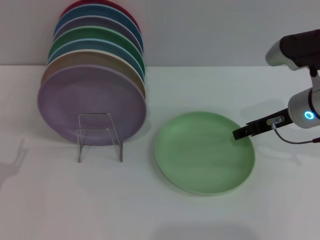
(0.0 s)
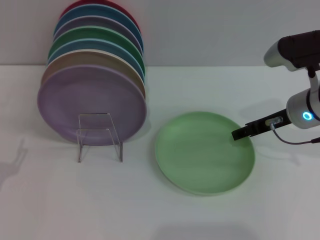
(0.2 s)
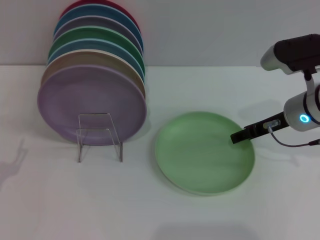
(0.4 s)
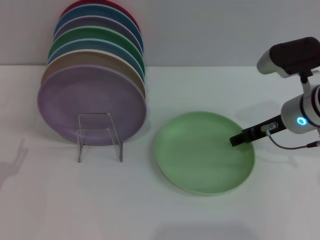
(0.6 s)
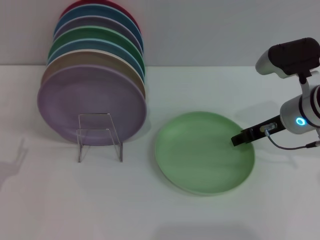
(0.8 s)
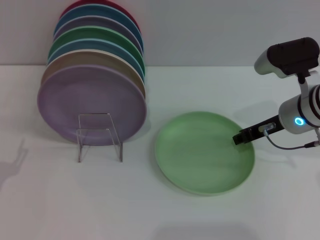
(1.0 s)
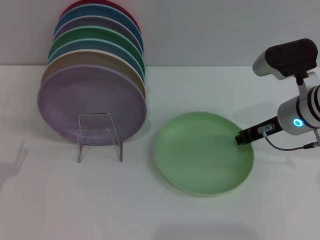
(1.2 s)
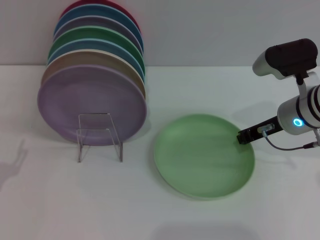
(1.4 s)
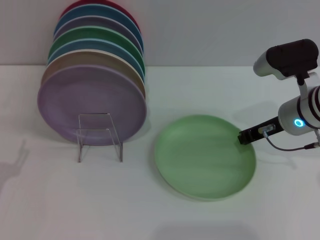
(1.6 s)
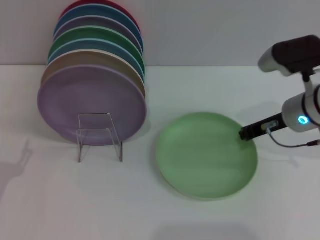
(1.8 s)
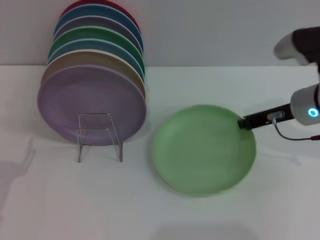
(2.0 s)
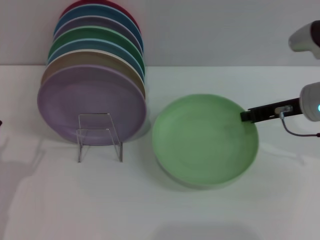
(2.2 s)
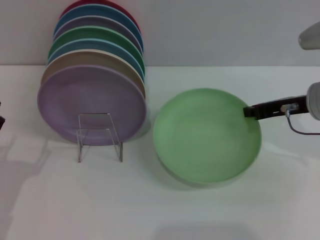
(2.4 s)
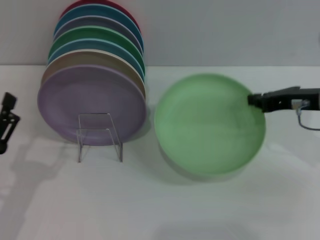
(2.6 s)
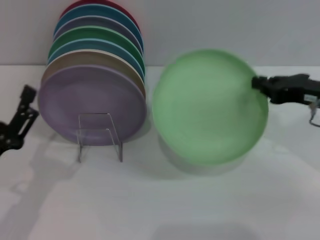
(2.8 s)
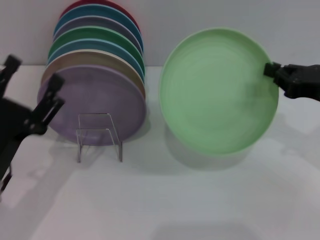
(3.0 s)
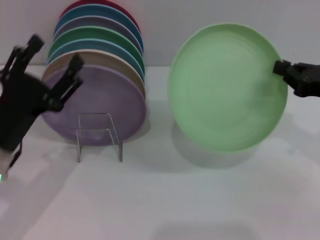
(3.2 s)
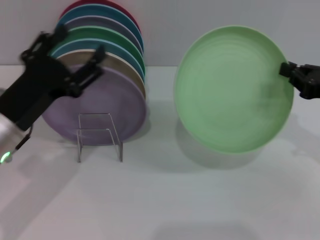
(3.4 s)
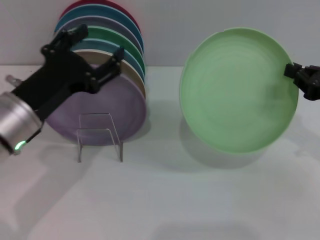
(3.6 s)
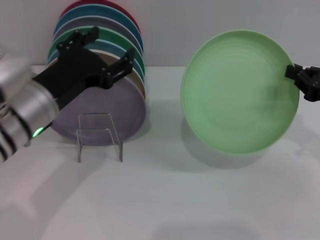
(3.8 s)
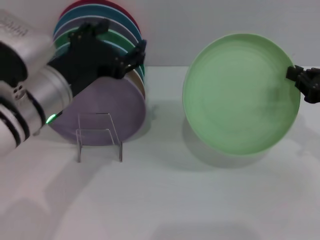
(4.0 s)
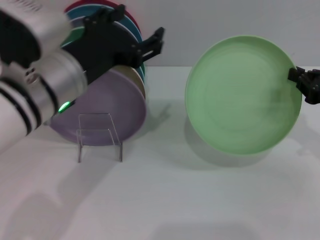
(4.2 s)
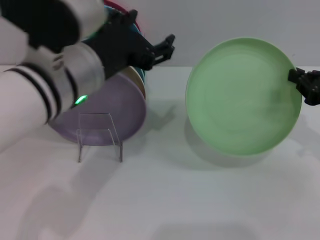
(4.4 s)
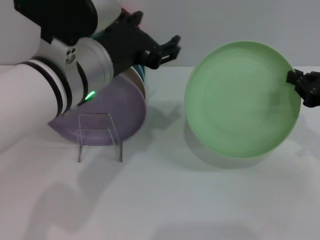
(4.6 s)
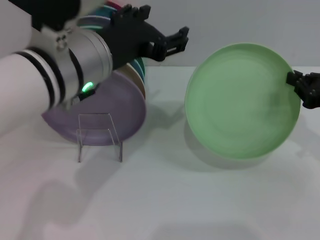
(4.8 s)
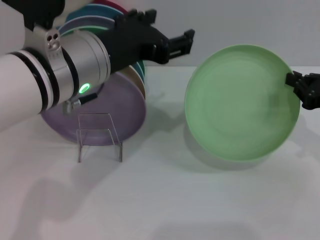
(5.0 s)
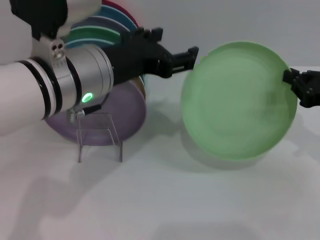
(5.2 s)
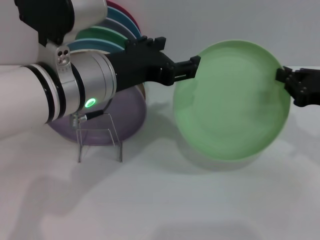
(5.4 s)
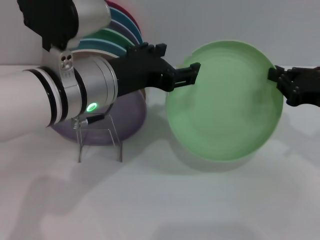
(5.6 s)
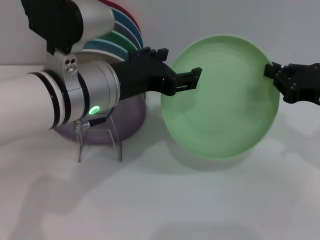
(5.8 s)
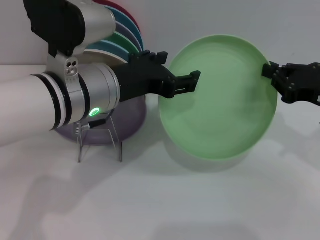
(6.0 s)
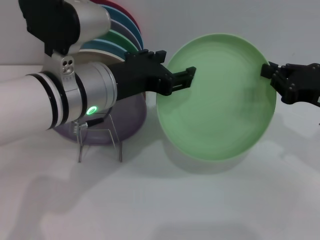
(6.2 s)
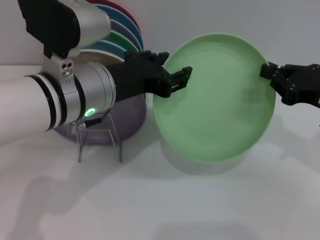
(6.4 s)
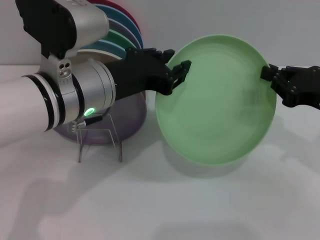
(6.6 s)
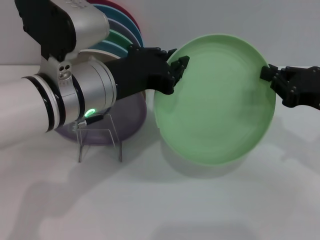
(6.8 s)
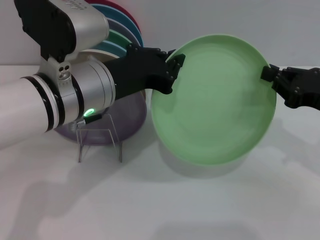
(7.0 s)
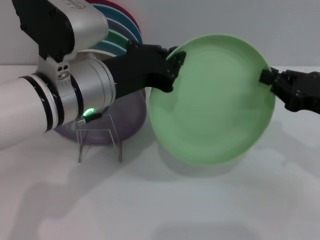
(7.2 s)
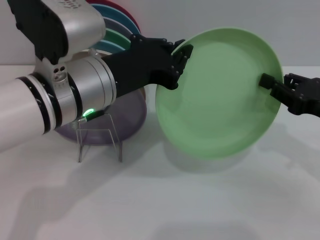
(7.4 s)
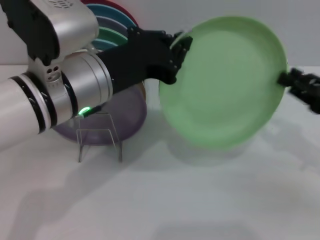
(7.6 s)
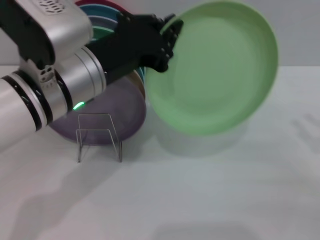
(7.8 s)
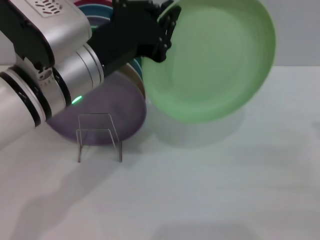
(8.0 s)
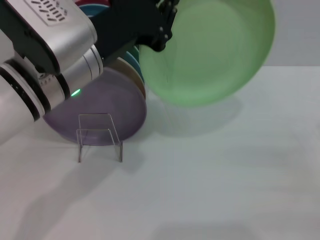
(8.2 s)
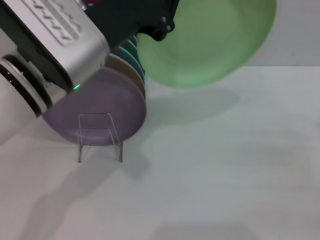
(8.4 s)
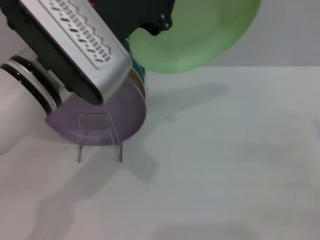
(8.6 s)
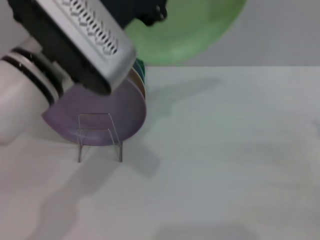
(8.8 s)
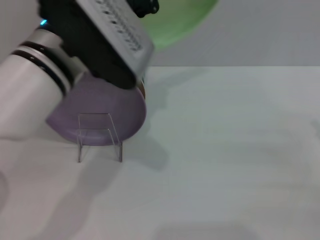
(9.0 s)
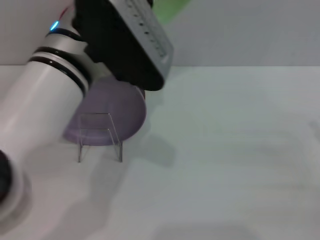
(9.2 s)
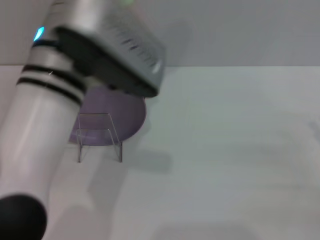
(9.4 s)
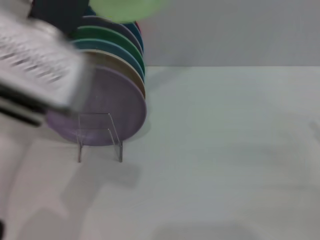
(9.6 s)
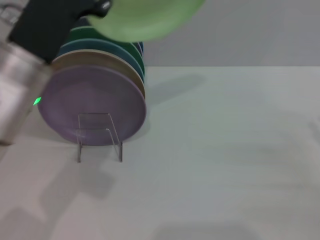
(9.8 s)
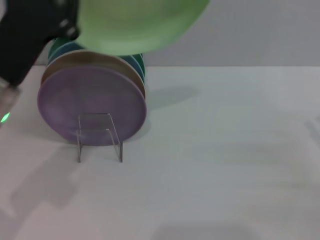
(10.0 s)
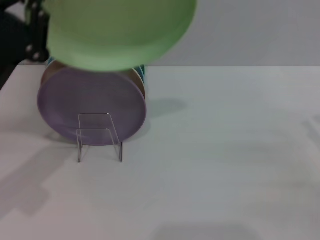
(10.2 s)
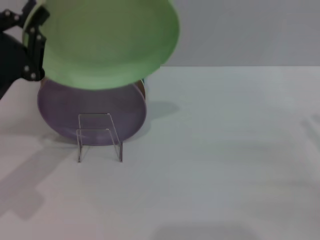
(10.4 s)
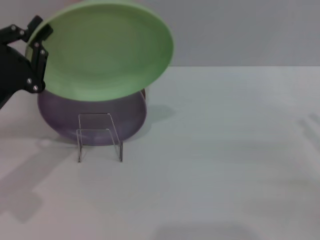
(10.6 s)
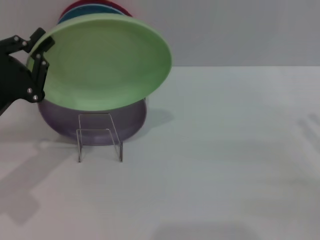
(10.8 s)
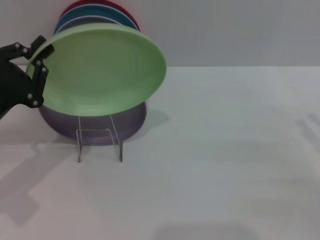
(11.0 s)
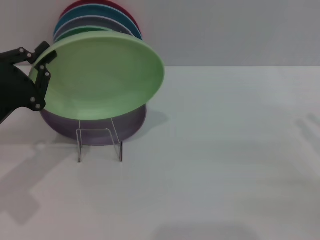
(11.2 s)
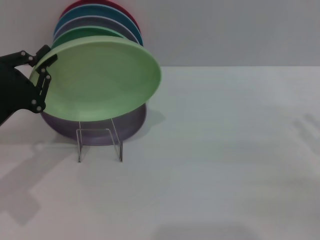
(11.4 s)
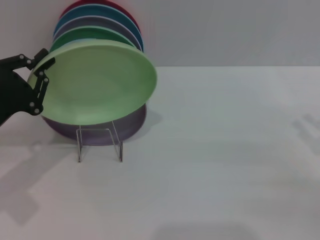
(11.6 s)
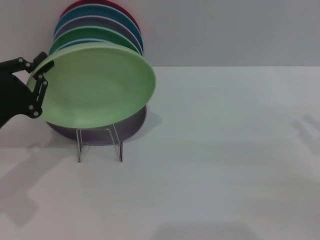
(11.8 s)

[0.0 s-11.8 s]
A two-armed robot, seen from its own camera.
Task of the whole recording: Grip the plate with one hand, pass it to the other, then set it on the shelf.
Step, 0.0 to 2.6 s: Pick up the plate with the right gripper.
Step, 2.8 to 7.8 s: Pass the plate from the right gripper to the left gripper.
0.0 to 1.4 s: The right gripper closes up.
1.4 to 3.0 s: The right gripper is displaced to the right and backward by approximately 10 cm; the left gripper goes about 5 cm to the right.
3.0 to 4.4 s: The left gripper shifts some 20 cm upward, to the right and forward.
6.0 to 7.4 s: The left gripper closes its fingers.
7.4 to 8.8 s: The right gripper goes some 10 cm to the right and backward, and opens up.
8.8 to 10.4 s: The left gripper shifts about 20 cm to the left and downward.

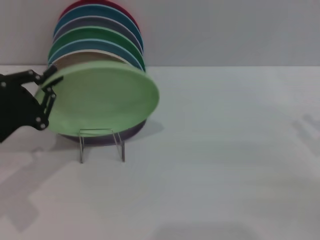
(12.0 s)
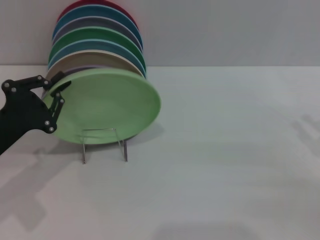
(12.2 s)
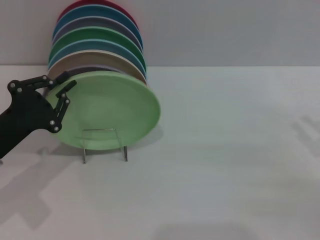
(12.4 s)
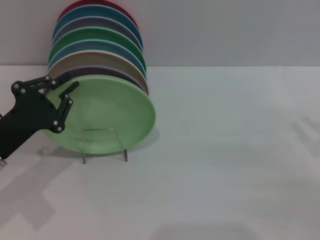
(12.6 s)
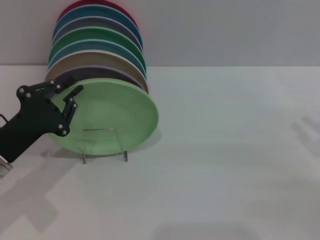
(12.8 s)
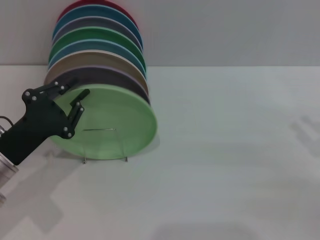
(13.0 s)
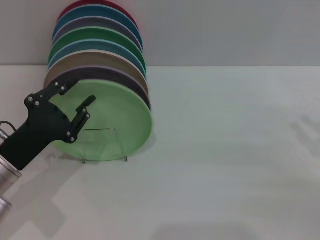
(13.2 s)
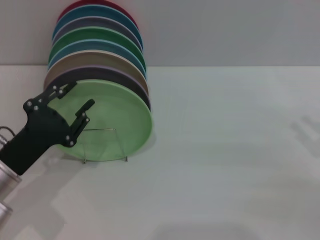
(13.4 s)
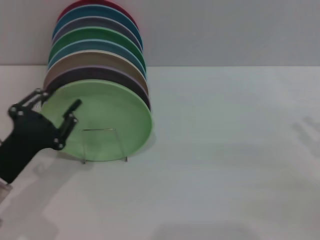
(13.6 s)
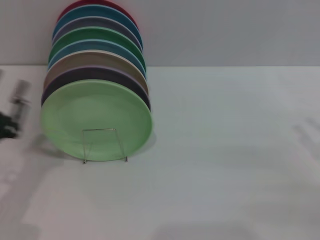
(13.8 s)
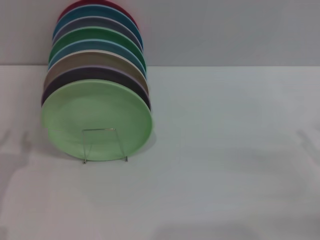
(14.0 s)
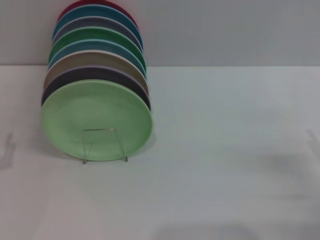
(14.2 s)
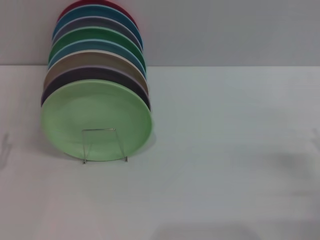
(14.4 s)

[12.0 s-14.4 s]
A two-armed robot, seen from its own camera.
Task of the whole recording: Grip the plate with one hand, pass it to the other, then set it on the shelf.
12.0 to 13.2 s: The left gripper ends up about 5 cm from where it was.
13.2 to 14.4 s: The left gripper is displaced to the left and backward by roughly 10 cm, and opens its fingers.
